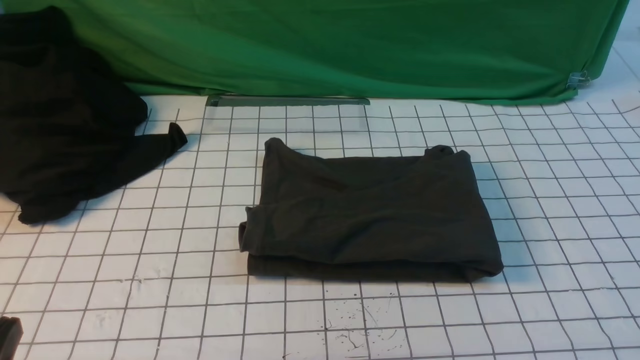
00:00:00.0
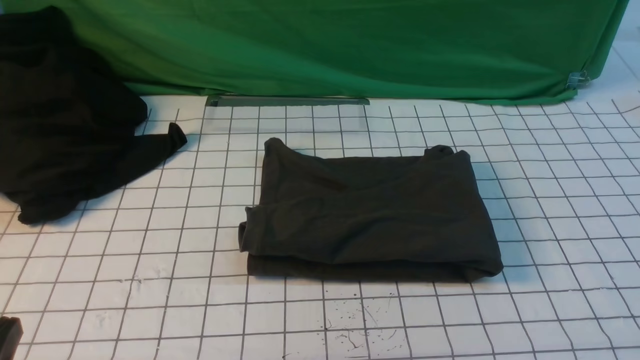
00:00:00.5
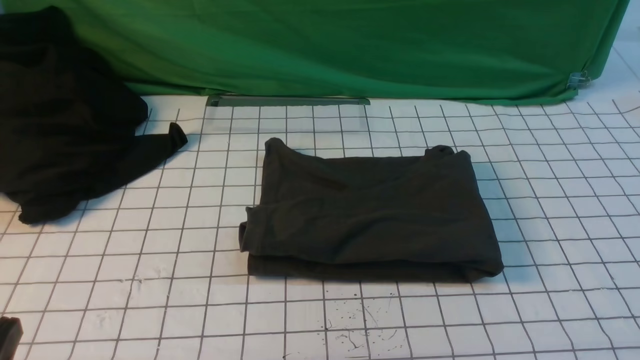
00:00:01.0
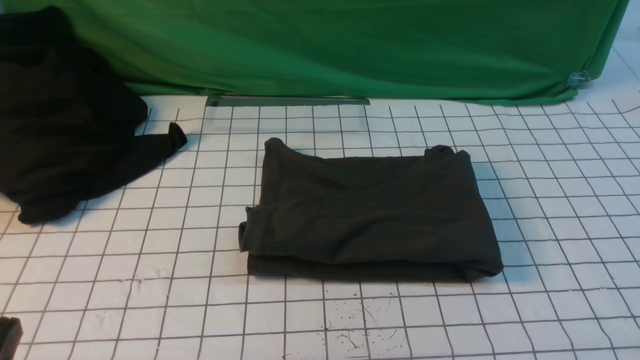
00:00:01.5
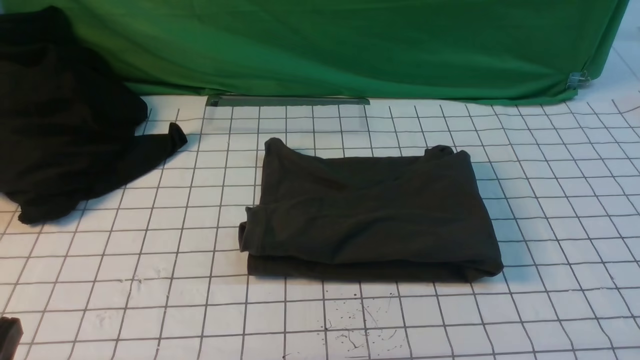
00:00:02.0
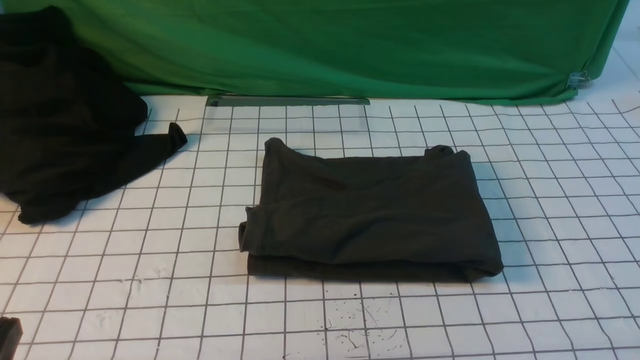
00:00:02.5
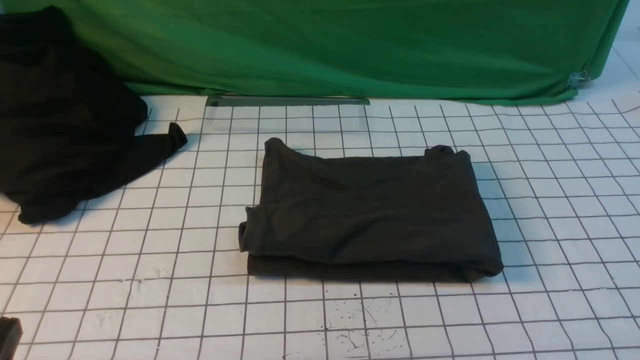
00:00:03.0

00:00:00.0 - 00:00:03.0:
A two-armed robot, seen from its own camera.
00:00:01.5 - 00:00:03.0: Both grippers stay about where they are.
